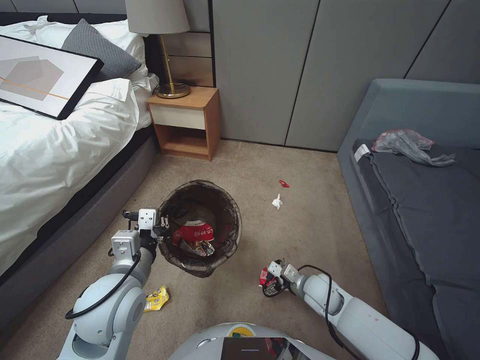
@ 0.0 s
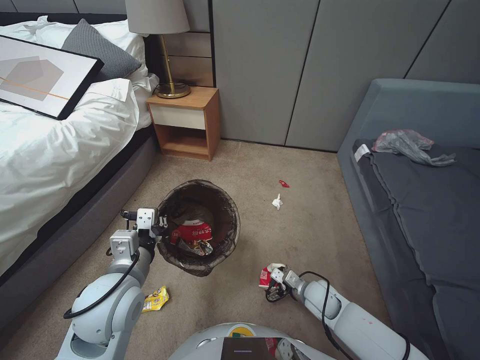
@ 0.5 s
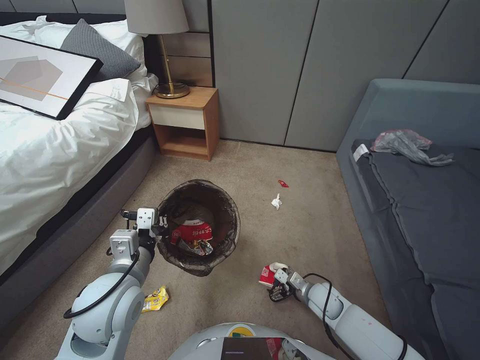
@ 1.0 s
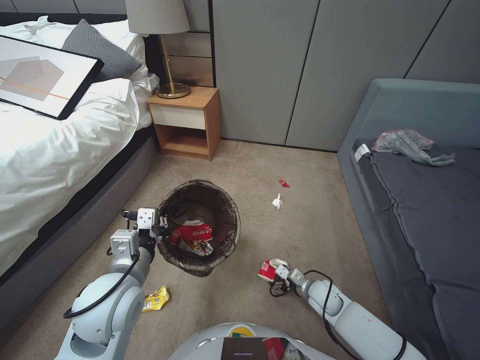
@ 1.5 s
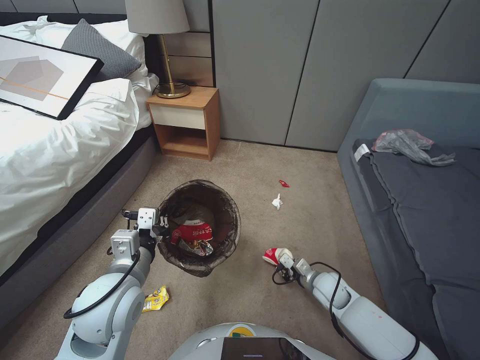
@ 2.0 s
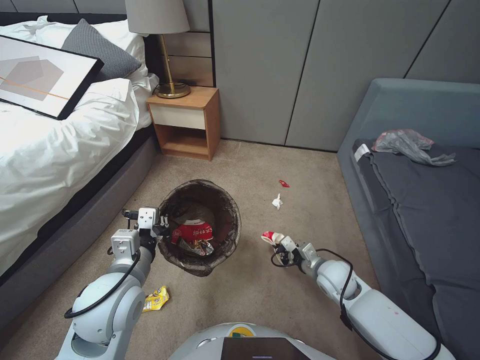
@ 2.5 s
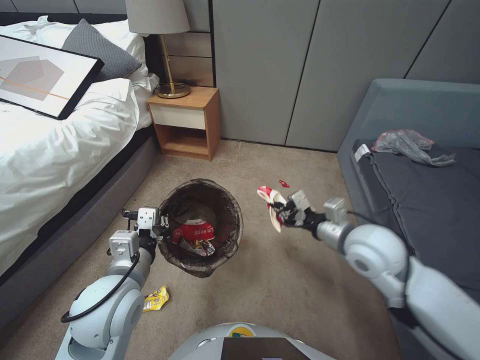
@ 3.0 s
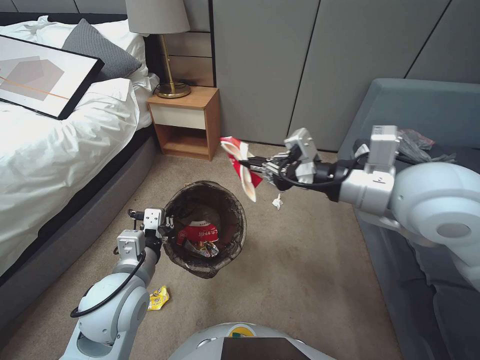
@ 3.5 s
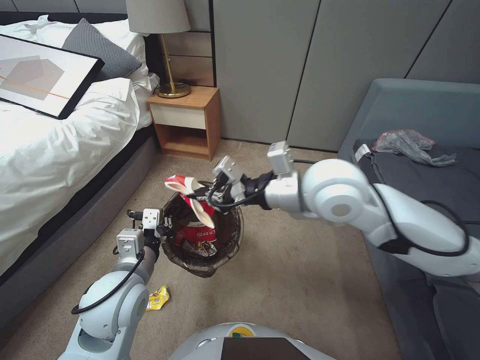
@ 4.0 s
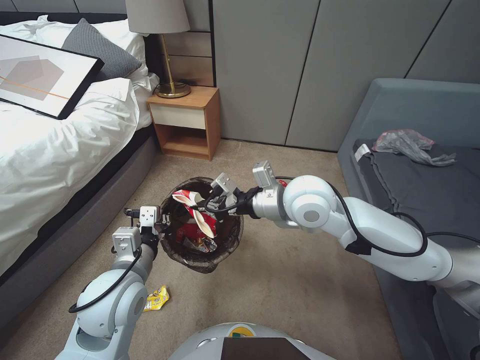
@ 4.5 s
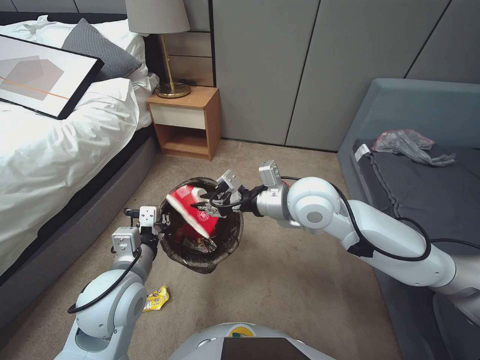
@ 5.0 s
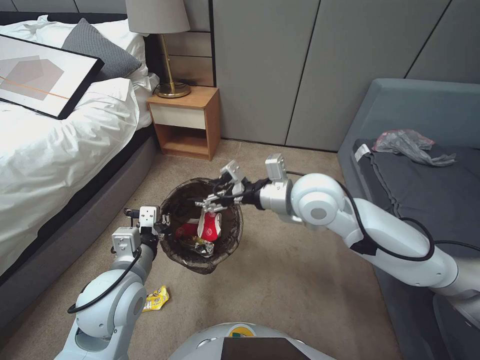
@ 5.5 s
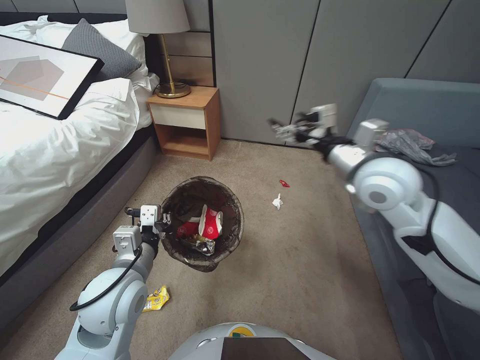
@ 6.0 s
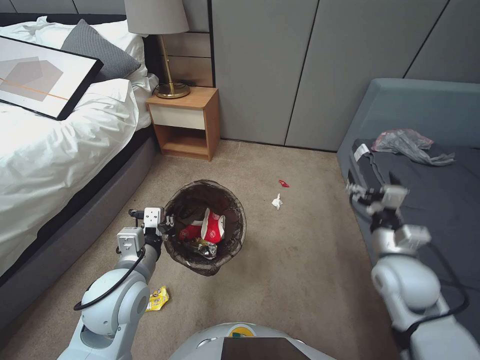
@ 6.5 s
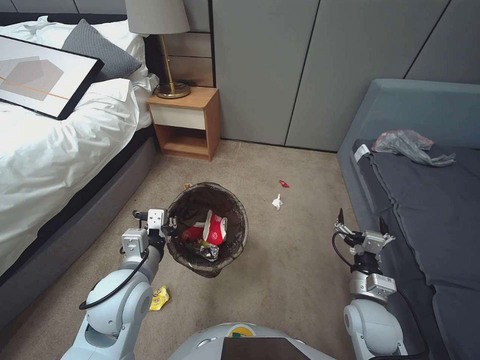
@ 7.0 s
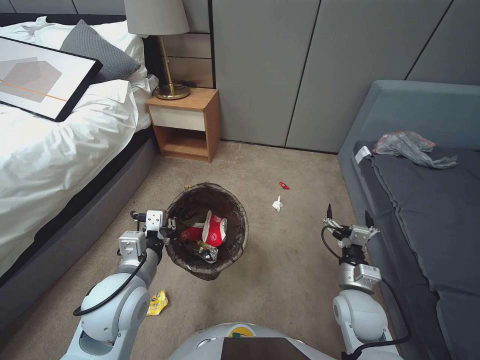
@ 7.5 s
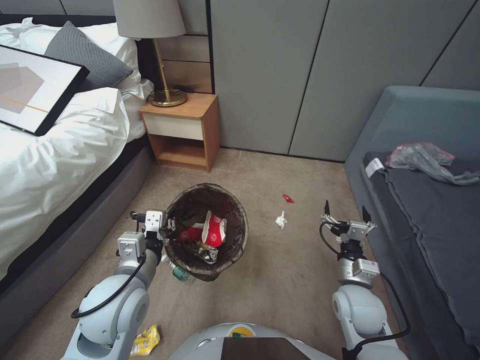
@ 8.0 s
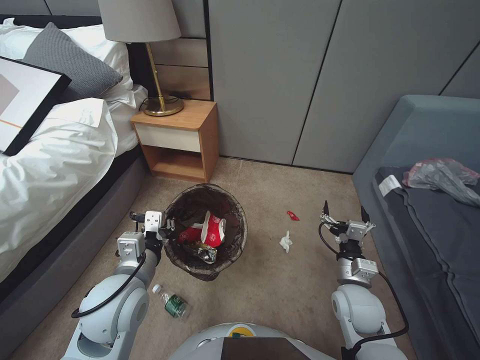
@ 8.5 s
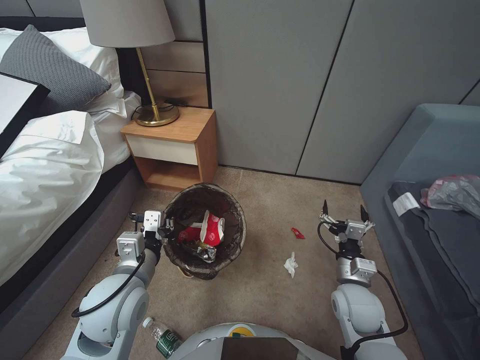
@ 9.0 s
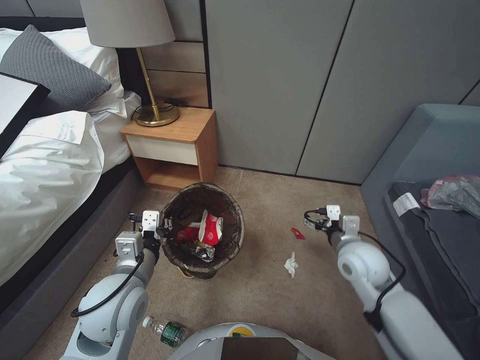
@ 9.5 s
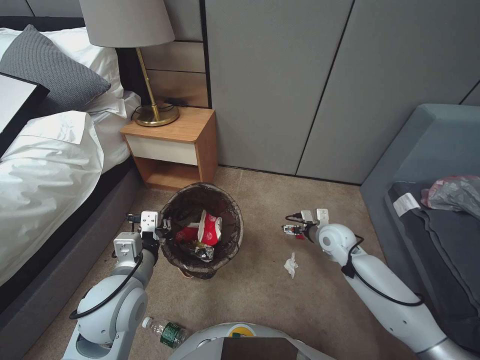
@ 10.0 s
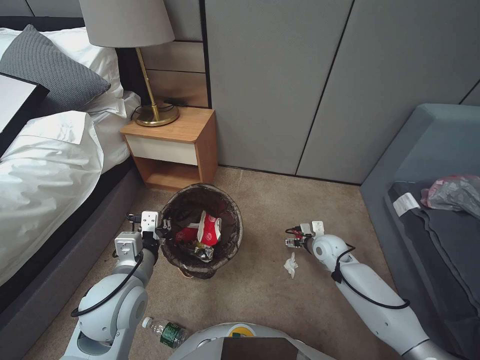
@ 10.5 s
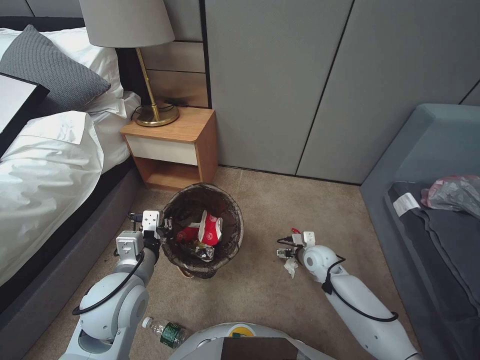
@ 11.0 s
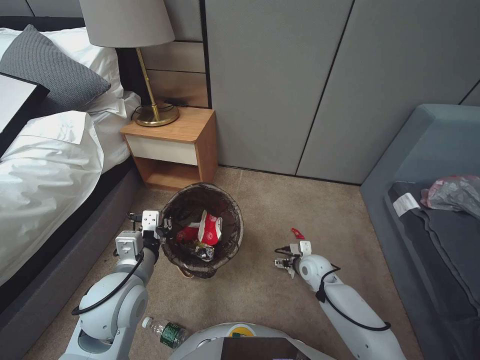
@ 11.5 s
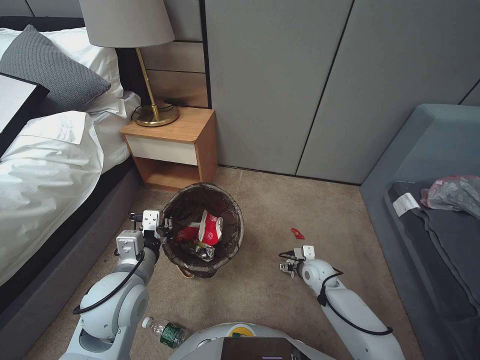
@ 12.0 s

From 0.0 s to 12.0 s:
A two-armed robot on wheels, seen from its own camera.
Task of the whole recording: Pick up the trash bin, then pick up the garbage from the floor and place it into the trash bin.
From 0.0 s to 2.0 s: The right gripper ends up about 5 cm from where it was, and closes its fingers.
From 2.0 s to 4.0 s: The right gripper moves upward, approximately 40 cm.
From 4.0 s to 6.0 s: The right gripper is displaced to the right by some 5 cm, and opens.
From 6.0 s to 8.0 s: The right gripper heads downward and backward, covering approximately 30 cm.
From 8.0 s to 10.0 s: The right gripper goes some 15 cm forward.
From 10.0 s to 12.0 s: The right gripper shifts roughly 15 cm downward.

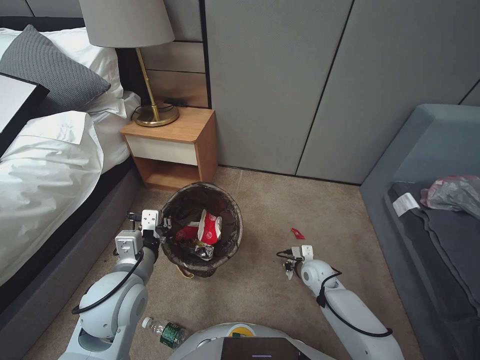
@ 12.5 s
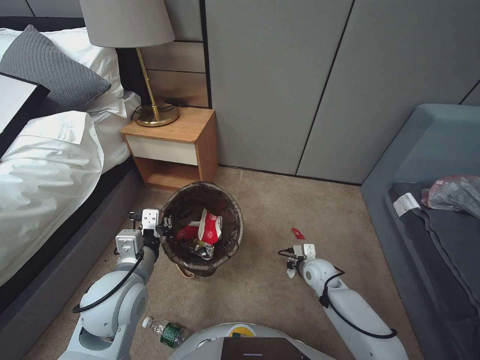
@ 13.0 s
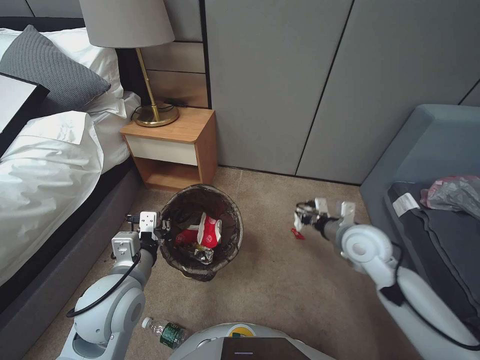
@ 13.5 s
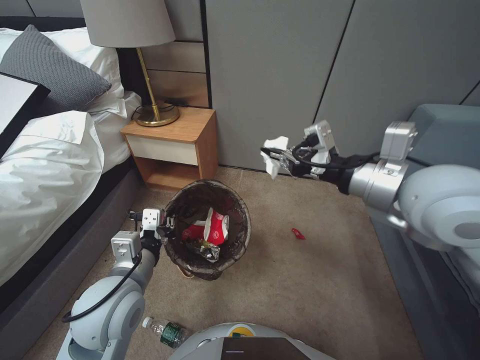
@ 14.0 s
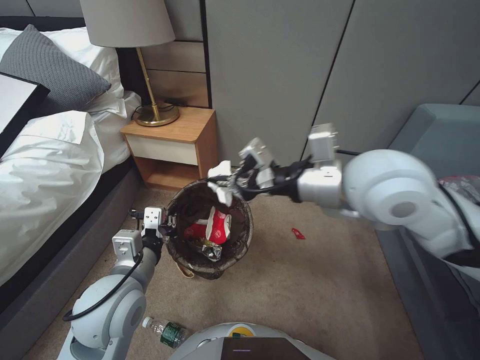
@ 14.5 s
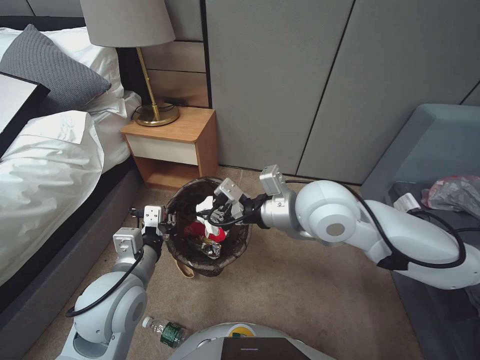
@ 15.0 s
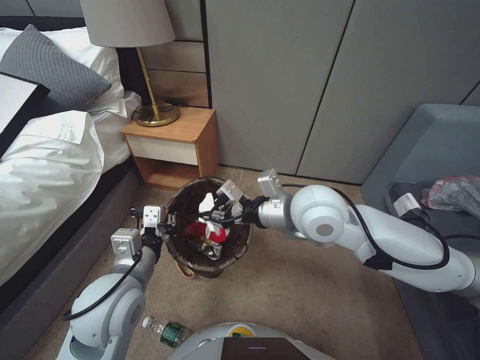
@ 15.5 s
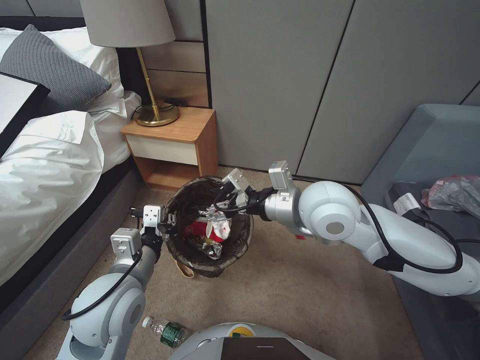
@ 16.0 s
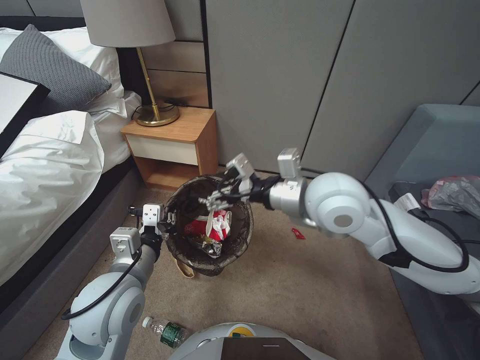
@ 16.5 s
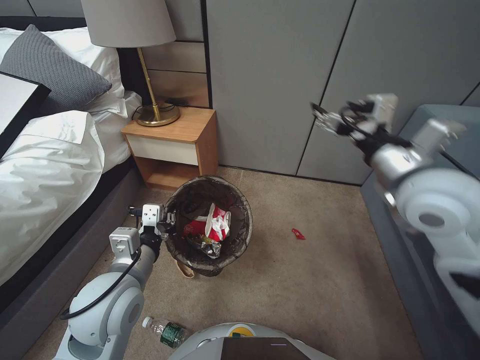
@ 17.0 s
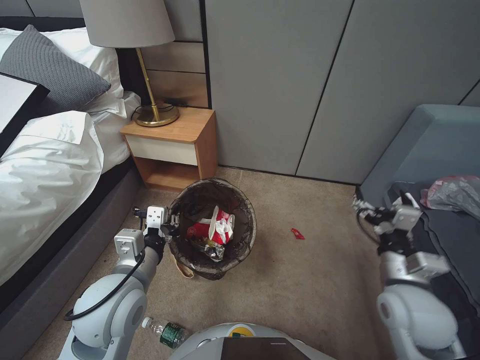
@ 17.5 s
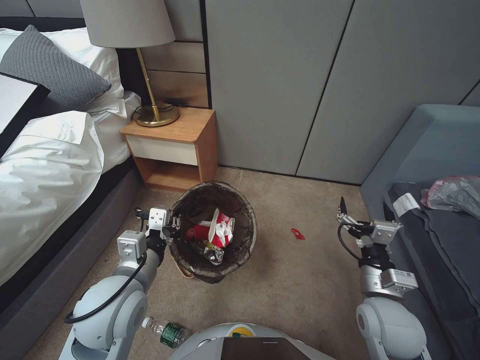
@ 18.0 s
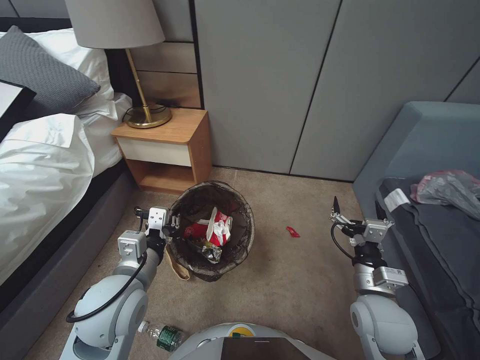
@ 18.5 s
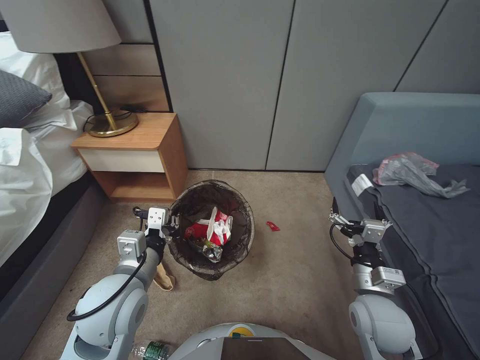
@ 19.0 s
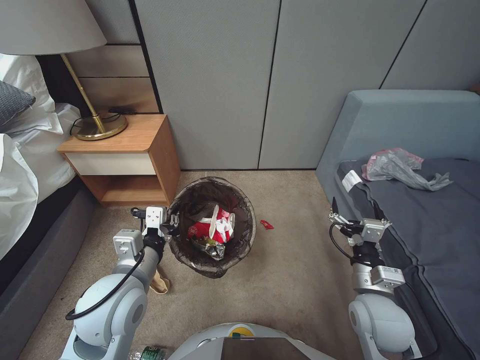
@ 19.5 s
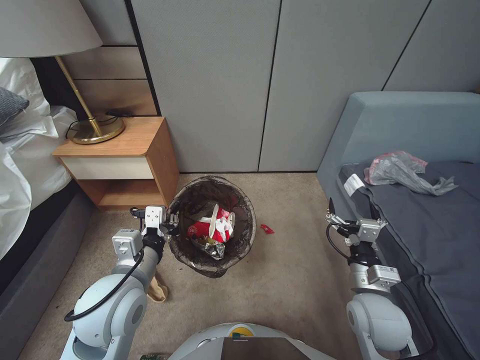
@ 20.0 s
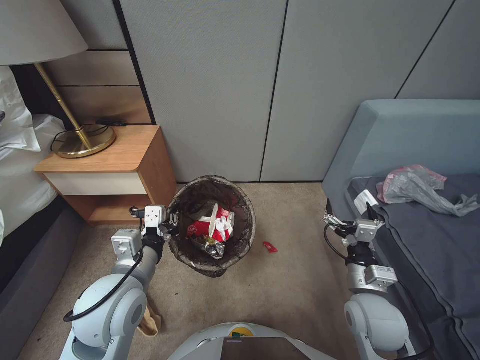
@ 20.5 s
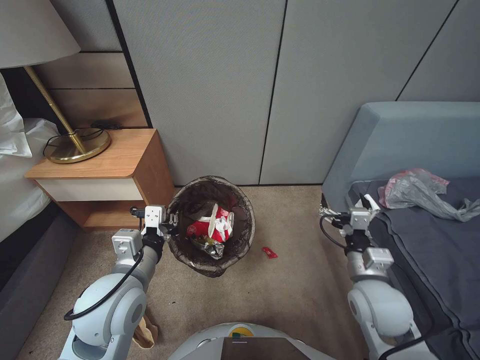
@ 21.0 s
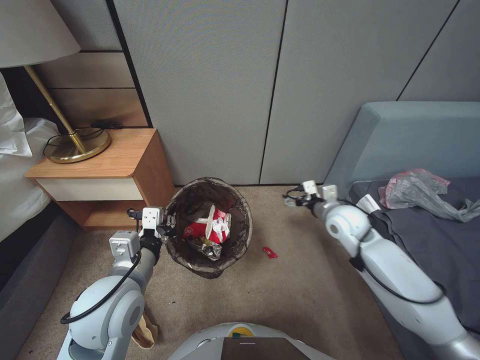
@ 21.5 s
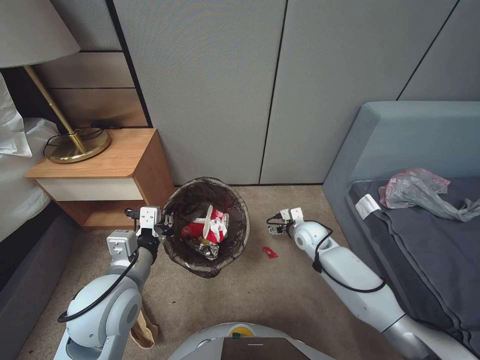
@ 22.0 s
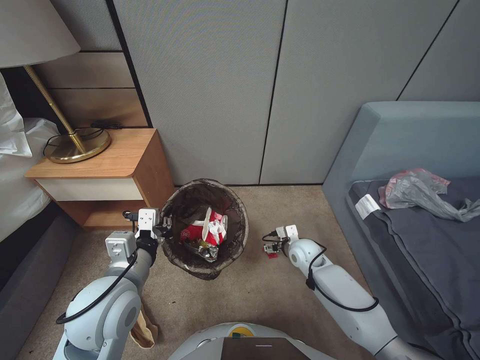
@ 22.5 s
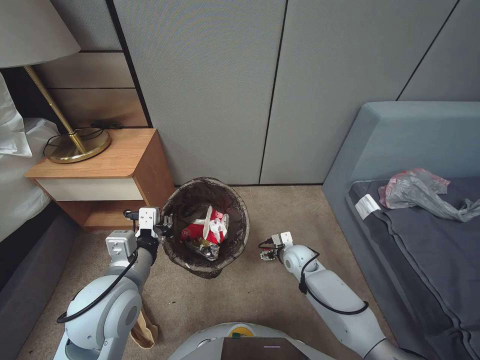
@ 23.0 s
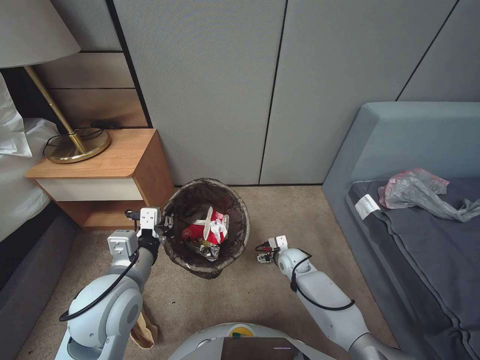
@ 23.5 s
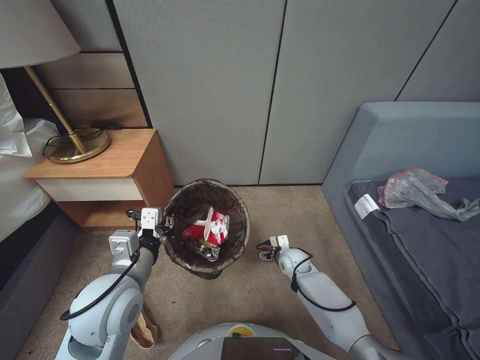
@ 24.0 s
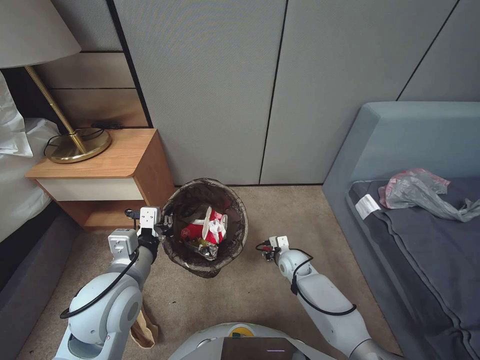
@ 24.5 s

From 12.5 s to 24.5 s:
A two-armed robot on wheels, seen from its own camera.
Task of the whole recording: Pick up the trash bin, then pick up the garbage from the floor and place it into the trash bin.
From 12.5 s to 14.5 s: The right gripper moves upward, approximately 50 cm, and closes.
From 14.5 s to 16.5 s: The right gripper shifts roughly 10 cm downward, and opens its fingers.
From 16.5 s to 18.5 s: The right gripper heads downward, to the right and backward, covering some 30 cm.
From 20.5 s to 22.5 s: The right gripper moves forward and downward, some 20 cm.
From 22.5 s to 24.5 s: The right gripper travels downward by roughly 10 cm, and closes.

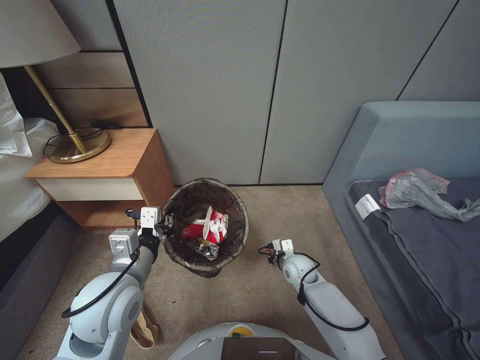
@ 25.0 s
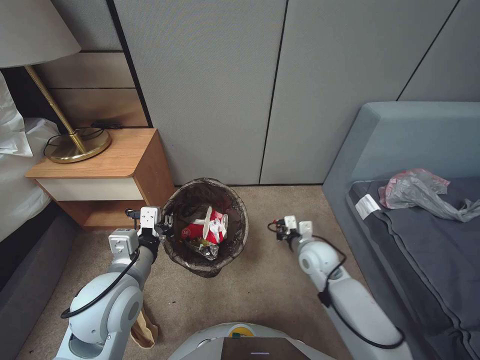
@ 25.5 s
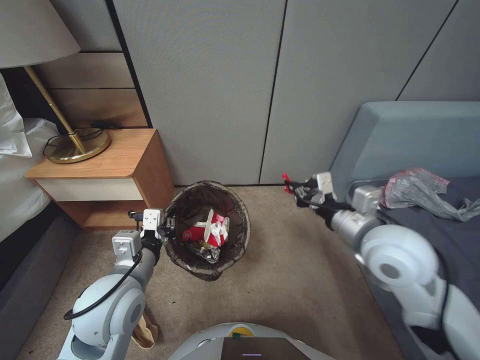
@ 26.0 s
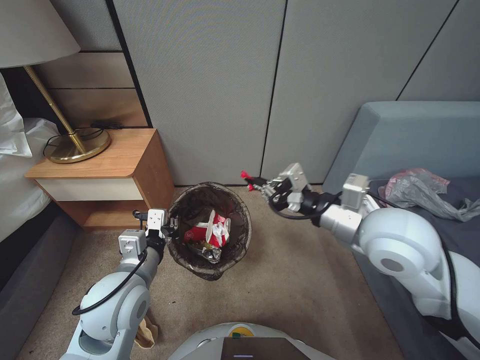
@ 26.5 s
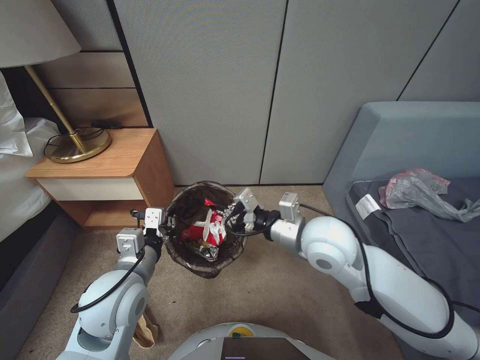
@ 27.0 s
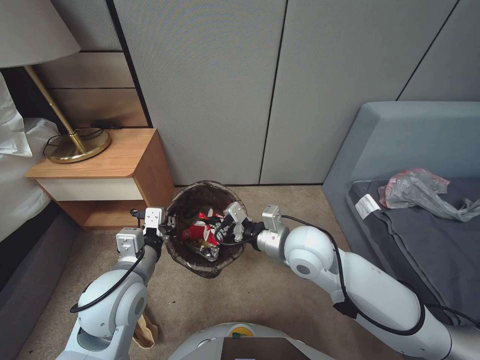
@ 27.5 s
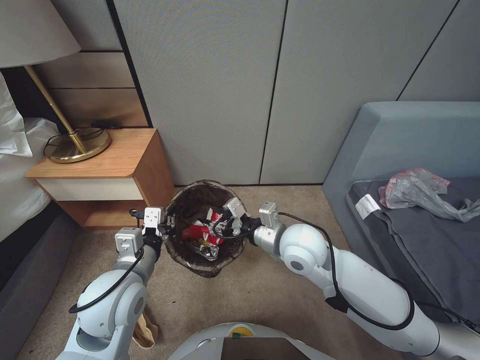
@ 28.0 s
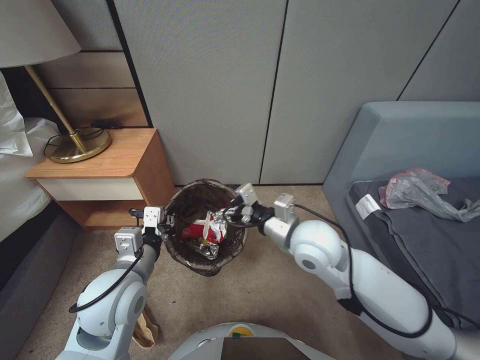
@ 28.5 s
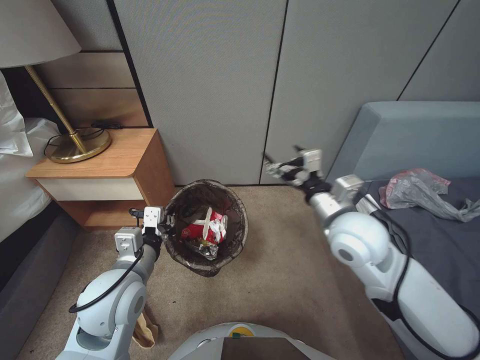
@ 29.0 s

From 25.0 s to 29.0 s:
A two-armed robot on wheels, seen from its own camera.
Task of the whole recording: Pick up the trash bin, then pick up the garbage from the floor and place it into the trash bin.
From 25.0 s to 27.0 s: The right gripper moves upward, approximately 30 cm.
From 27.0 s to 29.0 s: The right gripper opens.
